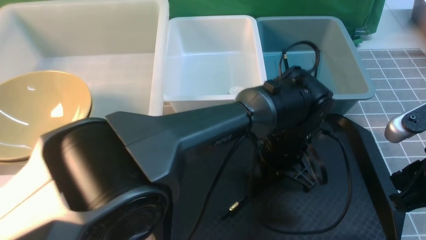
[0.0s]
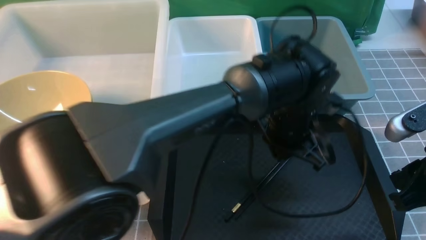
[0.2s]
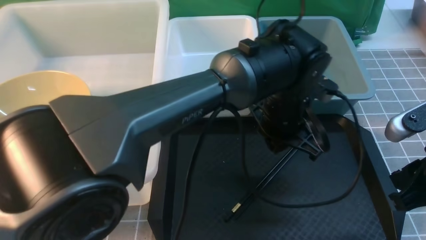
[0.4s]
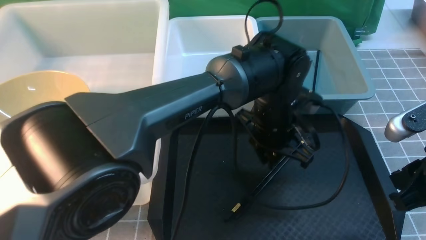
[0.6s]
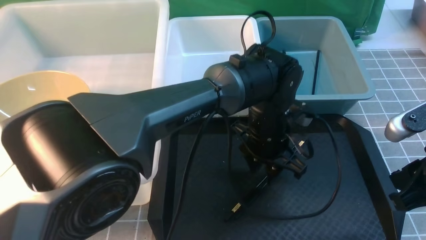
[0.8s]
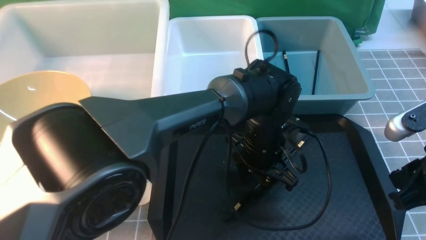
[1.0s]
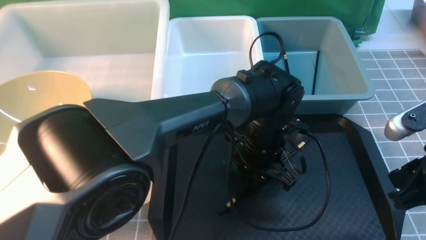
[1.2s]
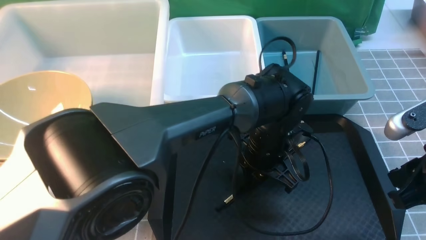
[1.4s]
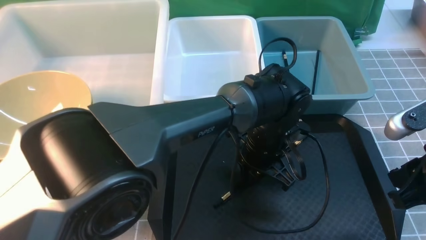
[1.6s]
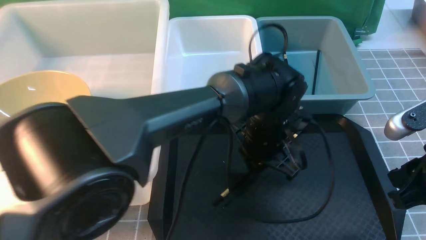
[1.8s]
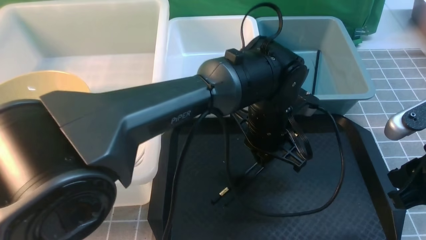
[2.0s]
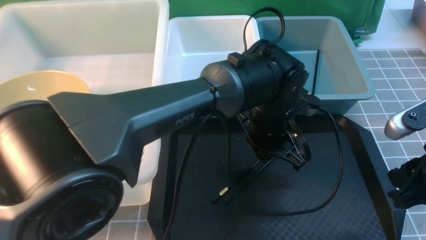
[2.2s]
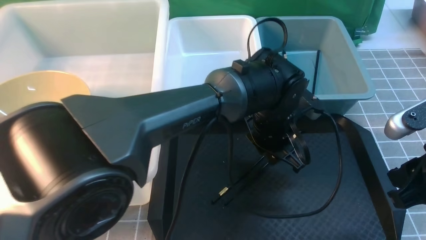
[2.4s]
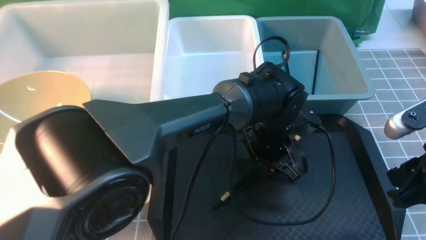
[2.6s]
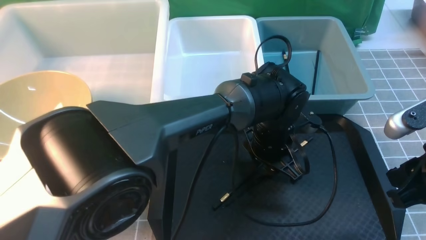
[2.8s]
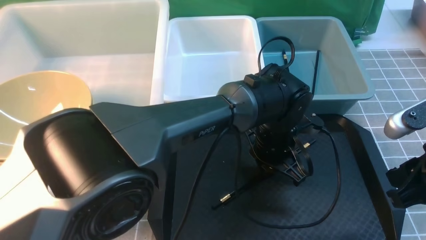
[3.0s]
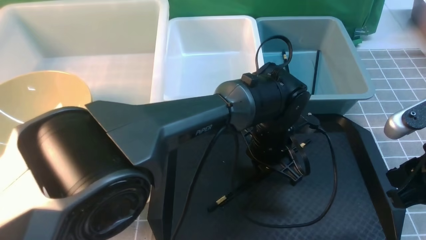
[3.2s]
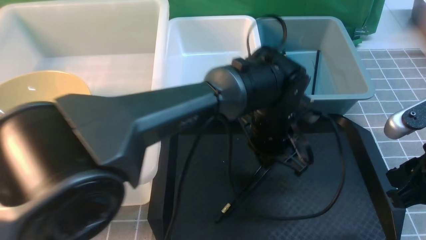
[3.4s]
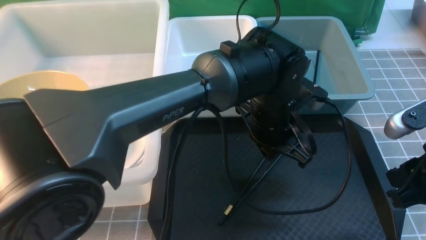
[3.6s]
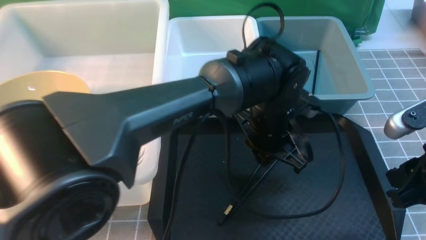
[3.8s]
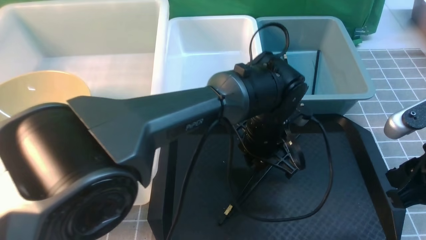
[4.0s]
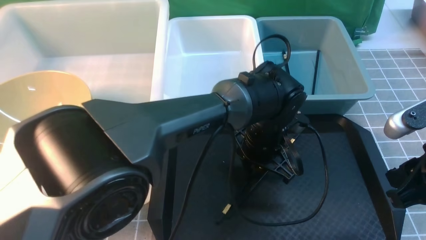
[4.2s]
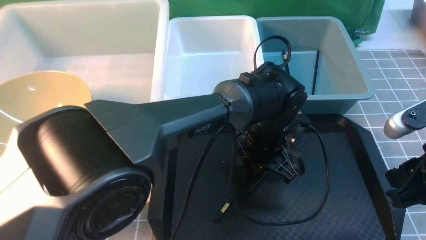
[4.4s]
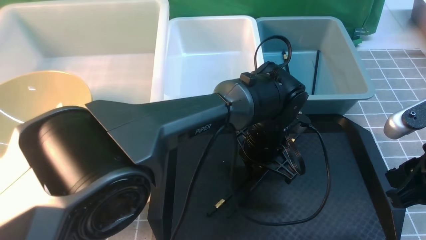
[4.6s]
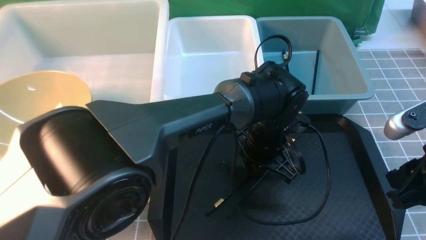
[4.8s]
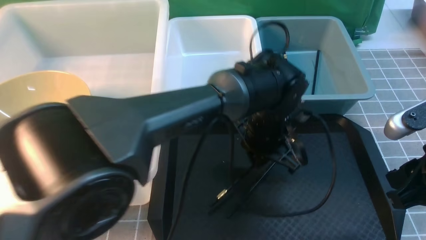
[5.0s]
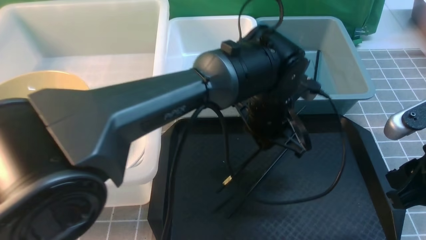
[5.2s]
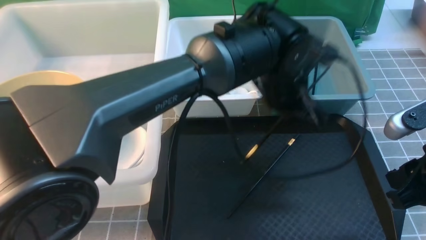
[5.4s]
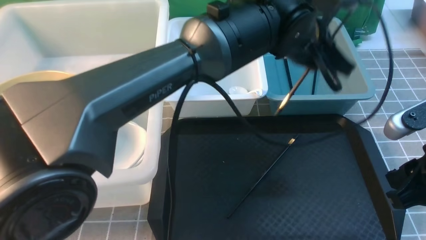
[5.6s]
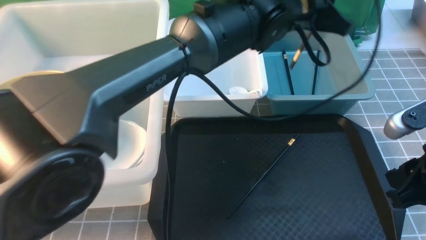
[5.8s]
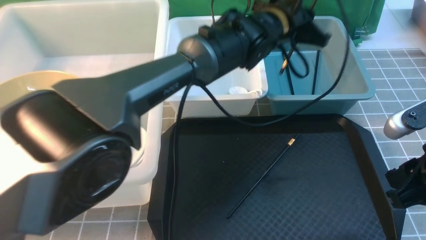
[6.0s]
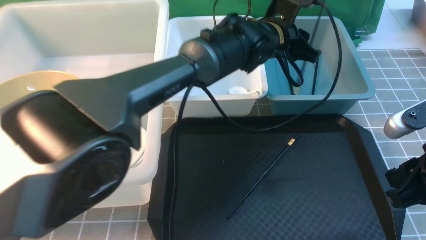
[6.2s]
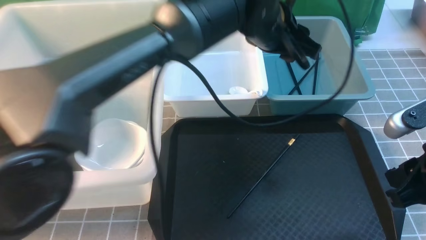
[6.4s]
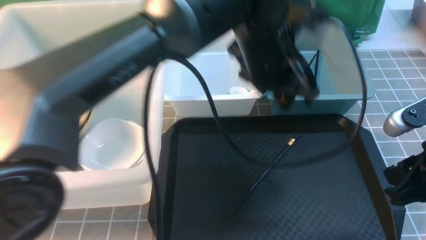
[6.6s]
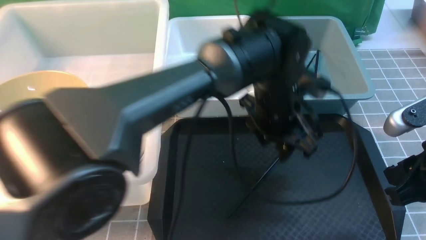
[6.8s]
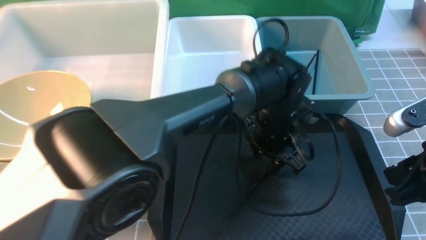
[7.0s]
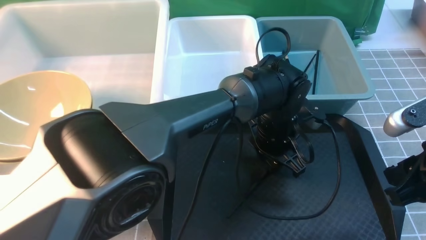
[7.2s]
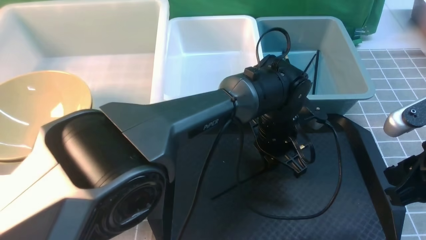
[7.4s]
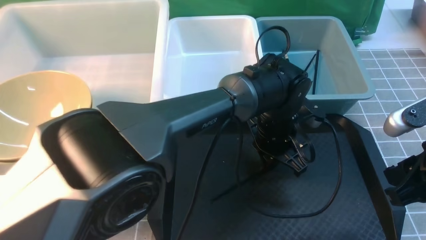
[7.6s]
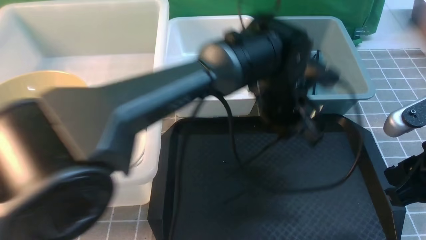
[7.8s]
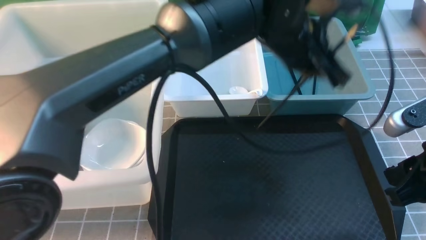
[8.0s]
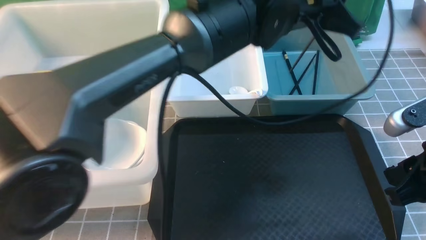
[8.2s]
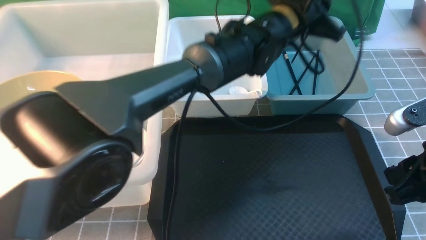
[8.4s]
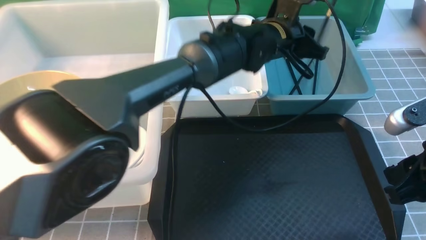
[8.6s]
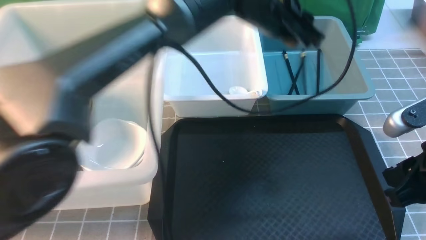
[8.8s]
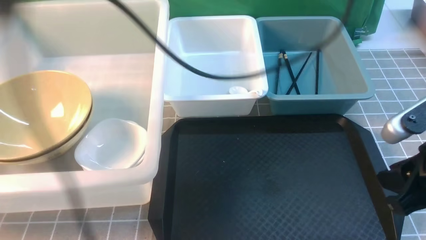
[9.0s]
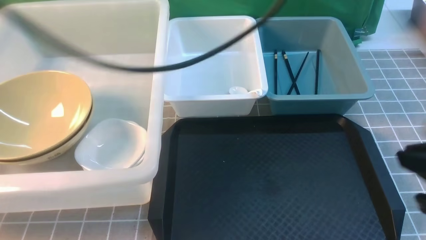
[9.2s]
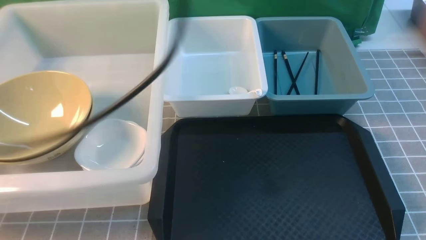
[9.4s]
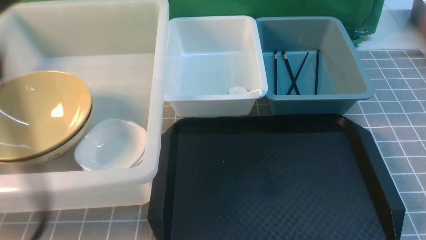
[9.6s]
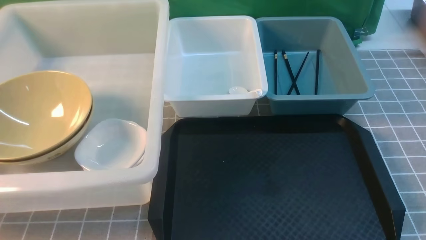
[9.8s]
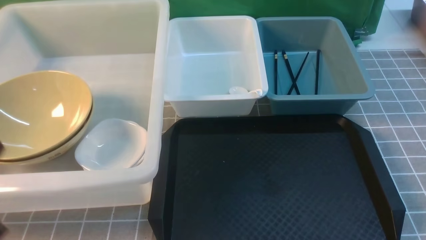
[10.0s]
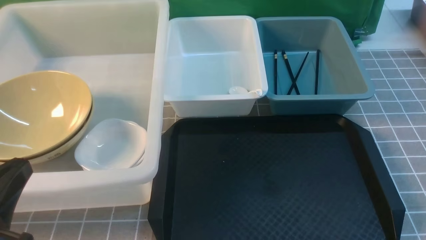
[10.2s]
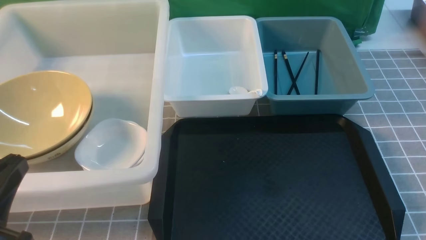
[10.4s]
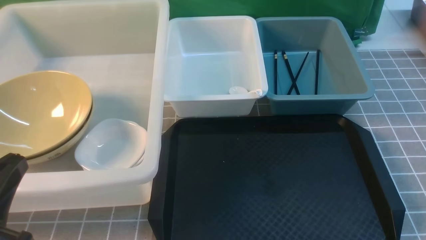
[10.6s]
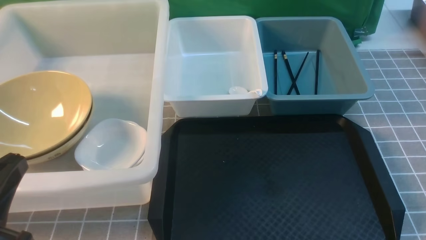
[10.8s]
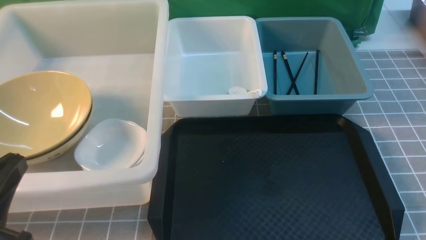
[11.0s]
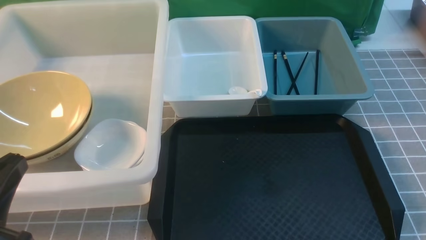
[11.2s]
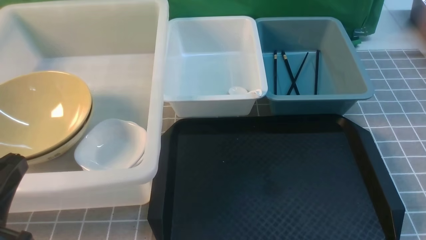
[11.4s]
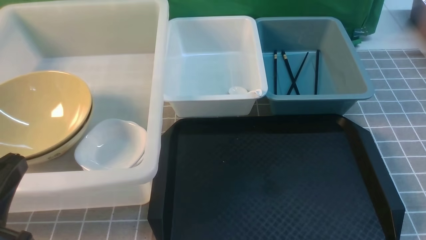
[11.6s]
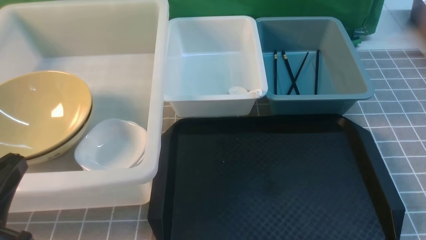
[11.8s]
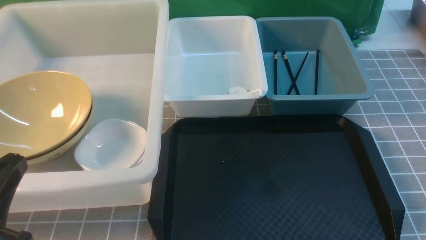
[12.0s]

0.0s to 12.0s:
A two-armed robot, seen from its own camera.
Task of the whole recording: on grey table put chopsticks spoon bowls plates into blue grey white boxes.
Step, 0.0s to 5.4s: use the left arm to grab a chopstick.
Step, 5.6s to 6.2s: use the left arm to put a chopstick into the small storage box on the right.
Step, 6.4s to 7.8s: use the left arm to grab a chopstick.
Step, 8.0s to 8.8s: use the left arm to put a chopstick into the small storage box on the right.
0.0s to 1.6s: The left gripper opens and closes again.
1.6s to 3.0s: The left gripper opens, then closes again.
3.0s to 4.4s: The grippers stay close to where they were, moving slightly.
4.4s to 6.0s: The left gripper travels upward and forward by some 15 cm.
6.0s to 7.6s: The left gripper goes some 10 cm backward and downward, and opens and closes again.
7.6s to 9.0s: The left gripper shifts about 30 cm upward and to the left.
9.0s to 10.4s: The left gripper is displaced backward, to the left and downward by approximately 40 cm, while the right gripper is displaced backward by approximately 10 cm, and closes its fingers.

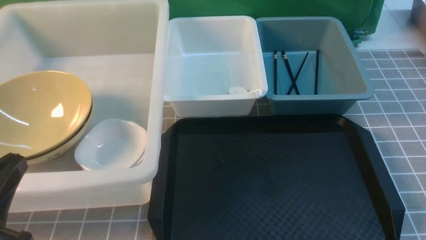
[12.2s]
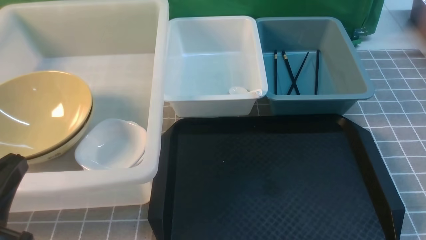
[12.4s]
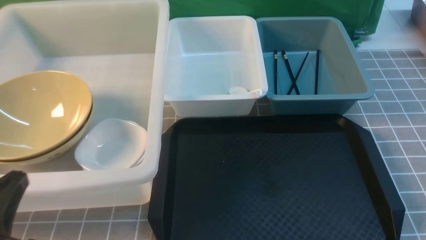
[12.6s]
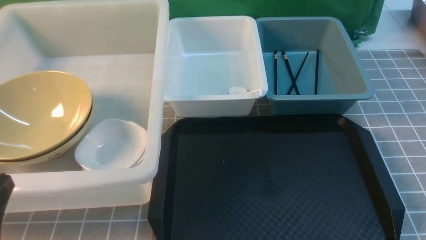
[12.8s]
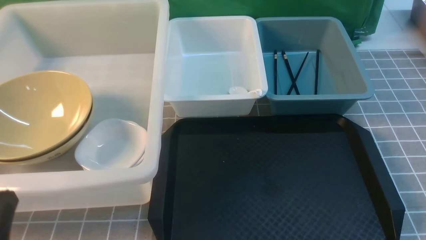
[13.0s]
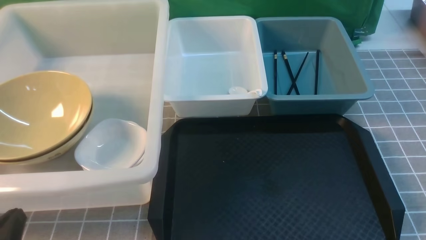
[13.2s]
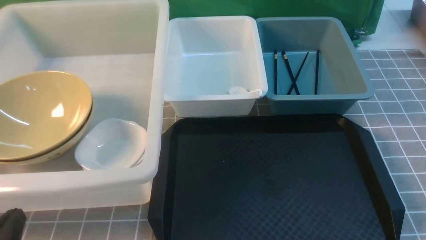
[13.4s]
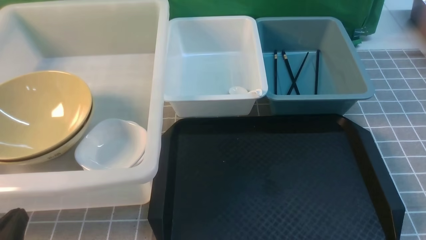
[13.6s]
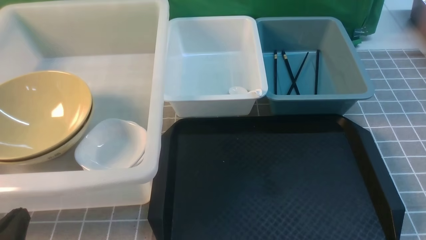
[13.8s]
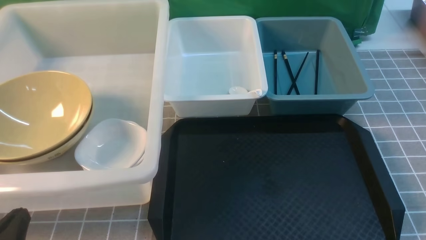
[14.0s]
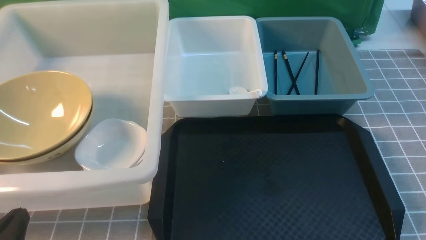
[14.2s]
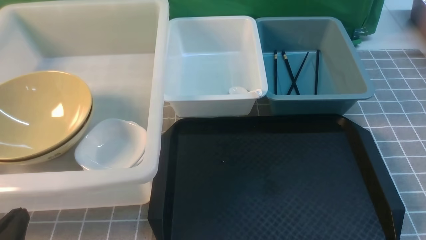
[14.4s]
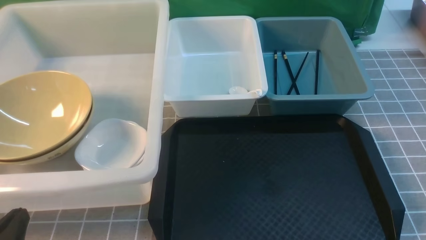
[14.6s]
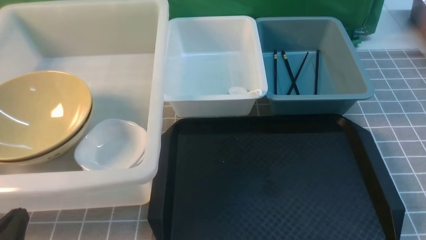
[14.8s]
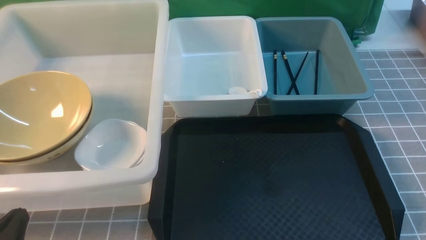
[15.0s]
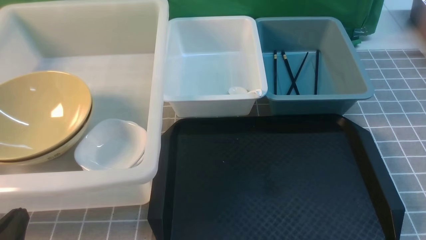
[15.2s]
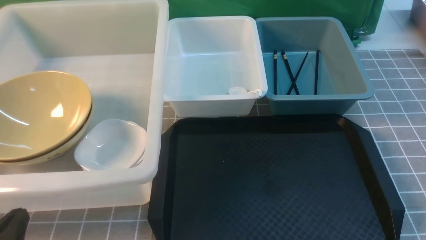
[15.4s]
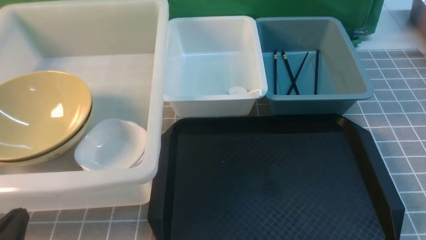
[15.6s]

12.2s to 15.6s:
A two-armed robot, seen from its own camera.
Task of the whole recording: on grey table put chopsticks spoon bowls plates into blue grey white boxes.
12.2s to 13.8s: The left gripper travels downward by about 10 cm.
13.8s to 15.6s: The two grippers keep their place.

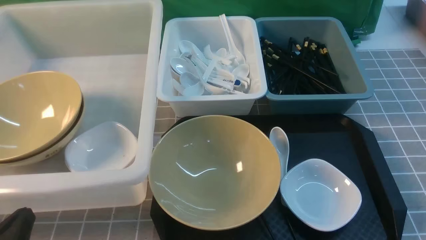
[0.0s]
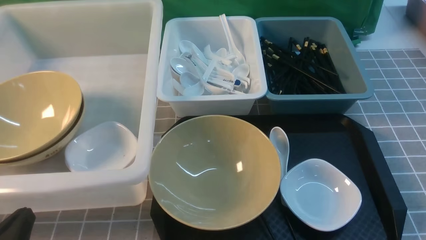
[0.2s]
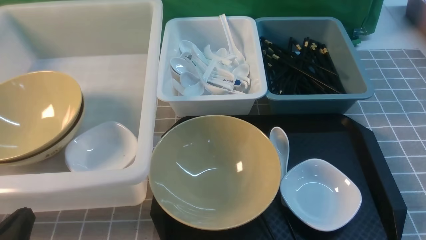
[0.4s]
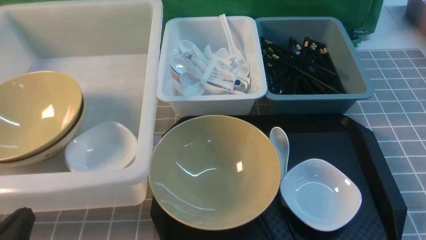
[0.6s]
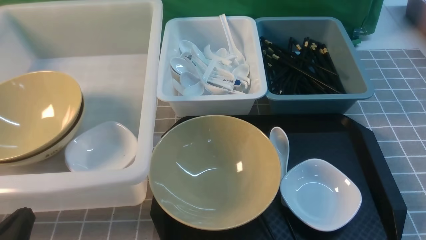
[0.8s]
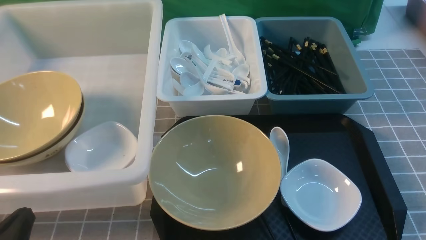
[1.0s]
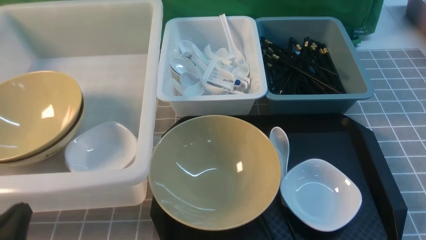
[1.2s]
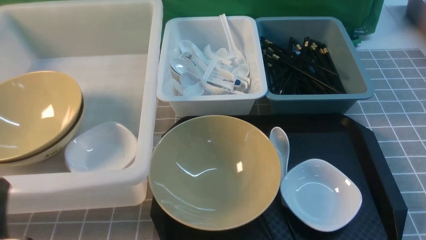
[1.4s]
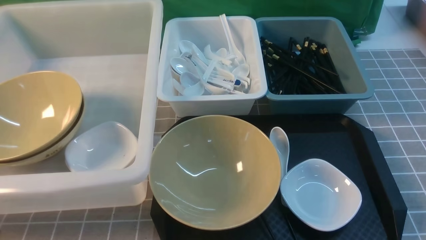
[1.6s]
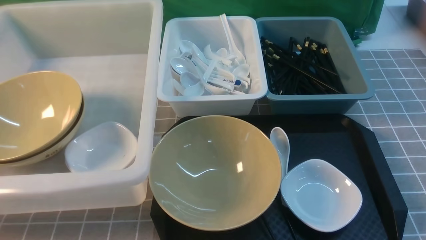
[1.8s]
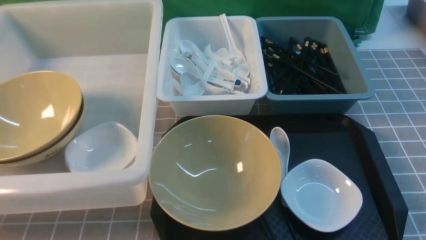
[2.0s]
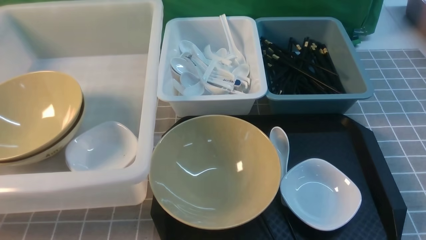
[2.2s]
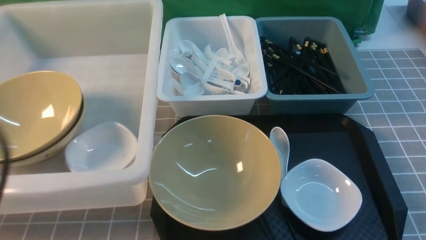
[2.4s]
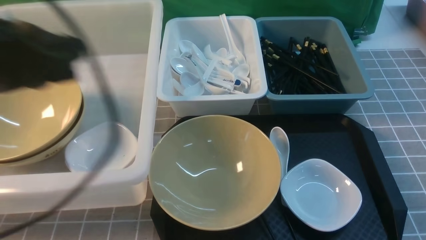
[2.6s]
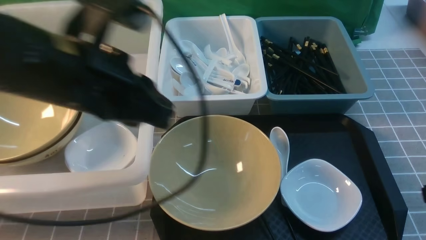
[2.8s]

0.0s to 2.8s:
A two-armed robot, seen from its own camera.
Task of the whole recording: on grey table put chopsticks spoon bowls plates into blue grey white boxes.
1.4s to 2.8s: The right gripper is displaced upward and forward by some 10 cm, and closes up. Meanwhile the left gripper shifts approximately 25 cm forward, upward and to the right.
